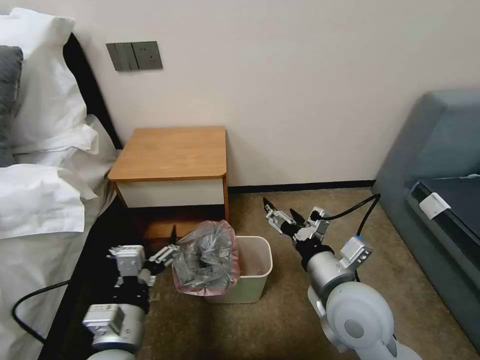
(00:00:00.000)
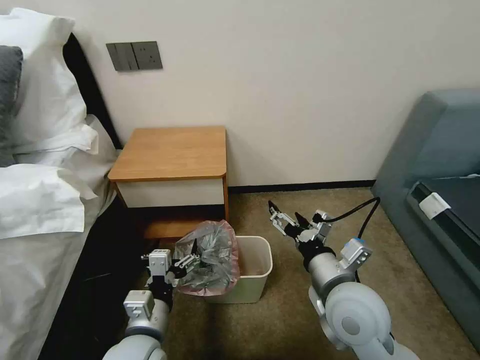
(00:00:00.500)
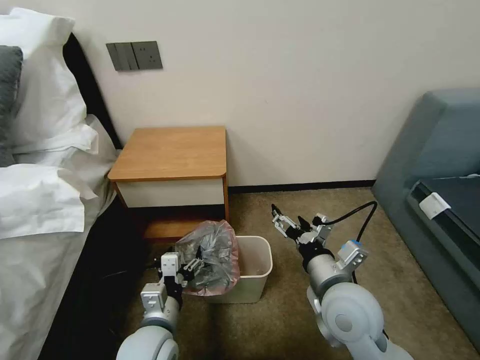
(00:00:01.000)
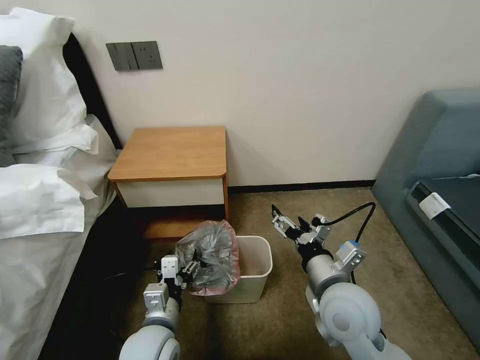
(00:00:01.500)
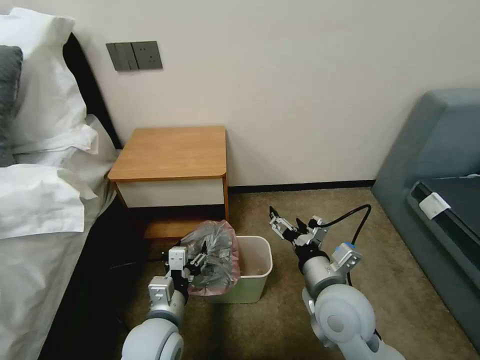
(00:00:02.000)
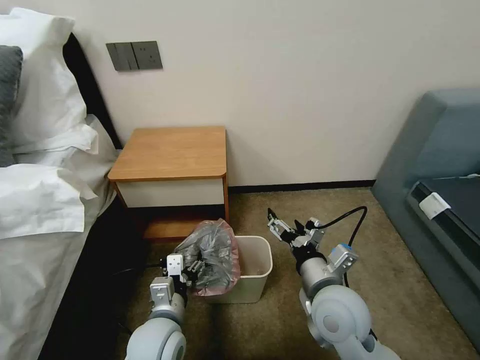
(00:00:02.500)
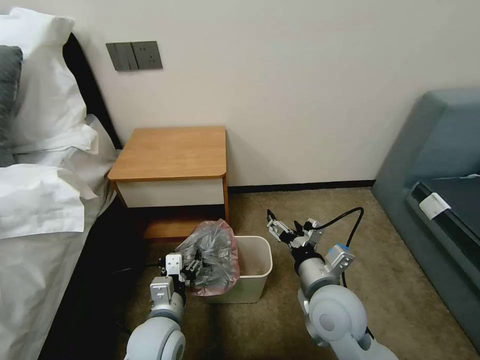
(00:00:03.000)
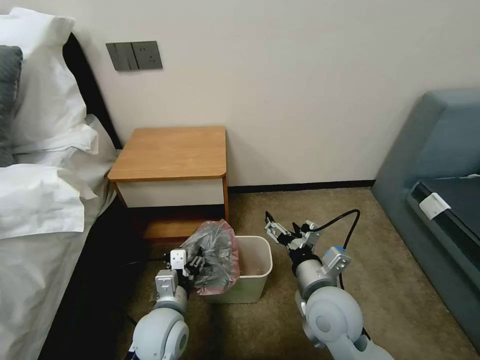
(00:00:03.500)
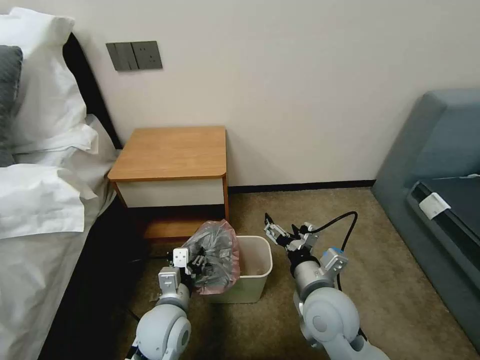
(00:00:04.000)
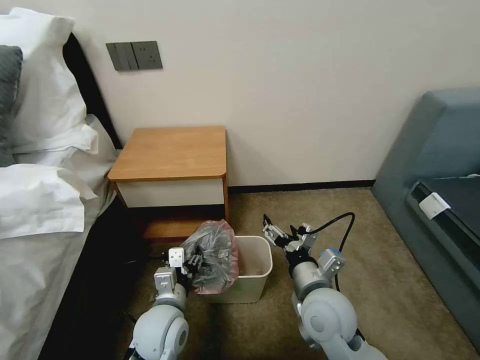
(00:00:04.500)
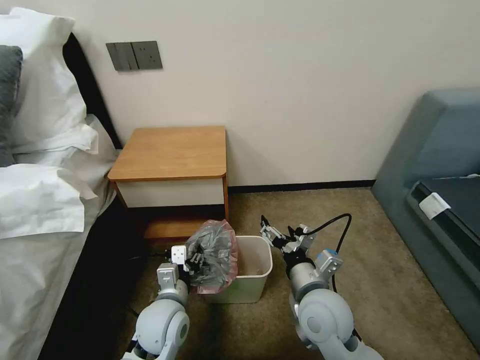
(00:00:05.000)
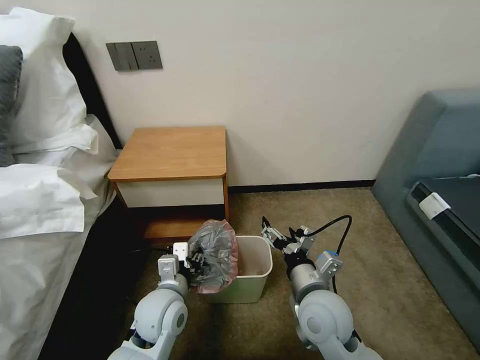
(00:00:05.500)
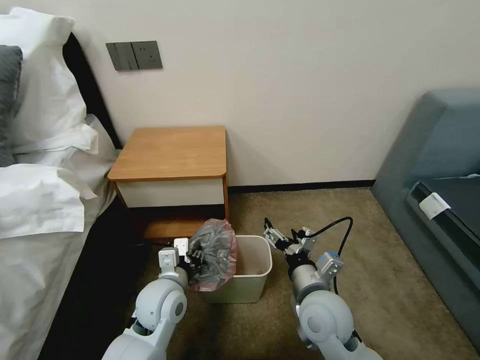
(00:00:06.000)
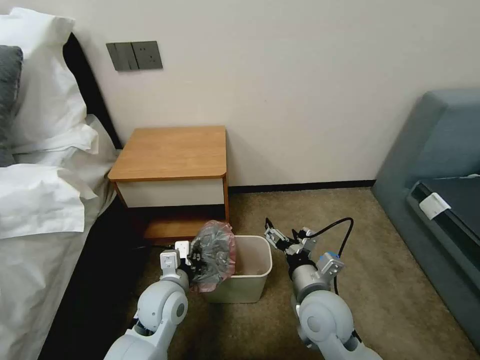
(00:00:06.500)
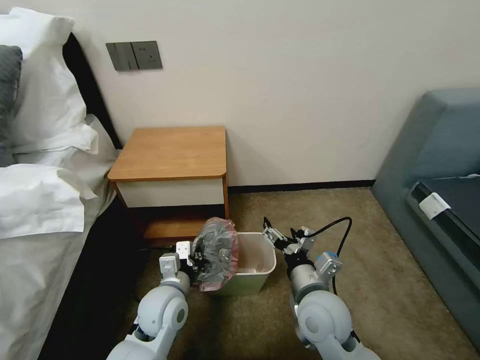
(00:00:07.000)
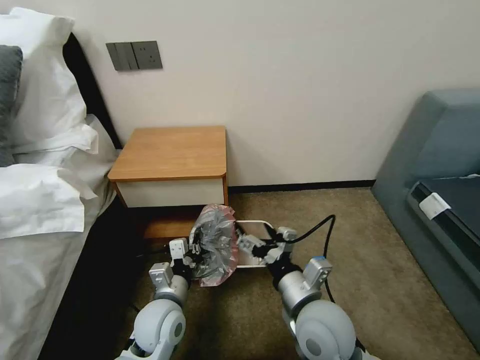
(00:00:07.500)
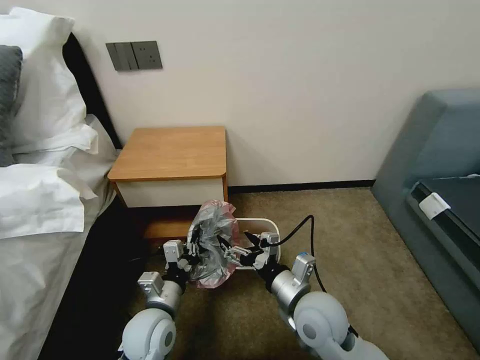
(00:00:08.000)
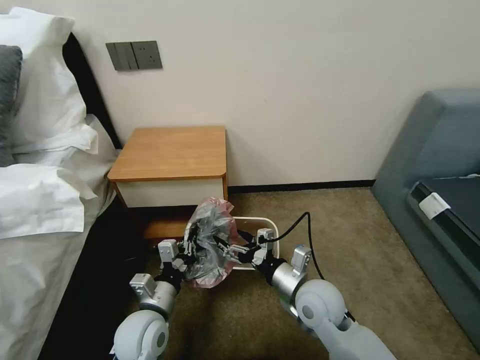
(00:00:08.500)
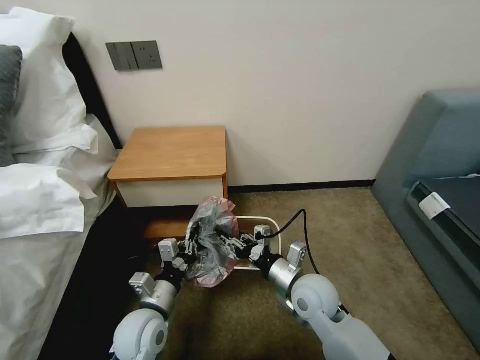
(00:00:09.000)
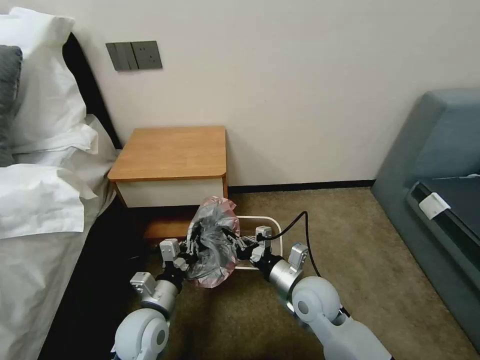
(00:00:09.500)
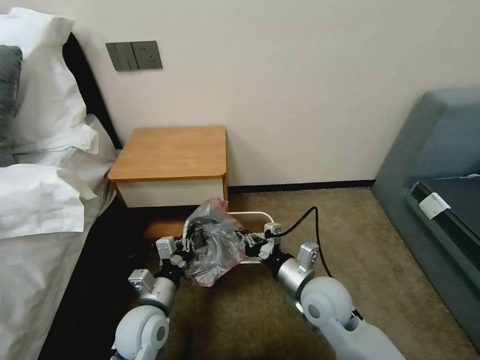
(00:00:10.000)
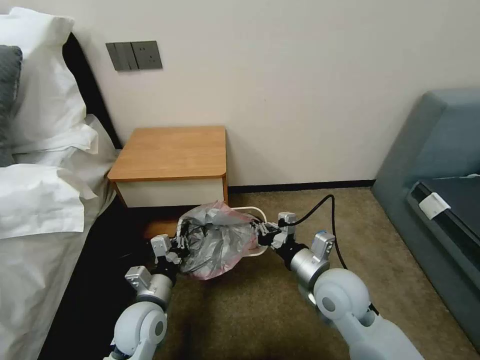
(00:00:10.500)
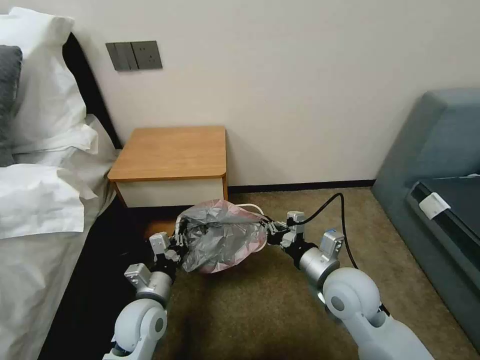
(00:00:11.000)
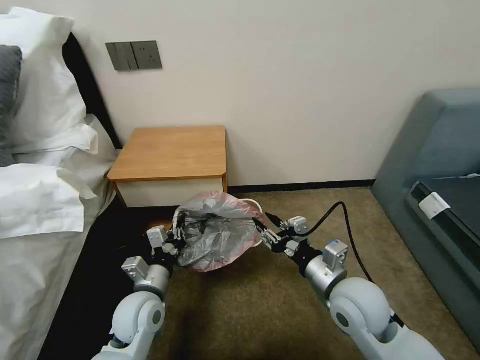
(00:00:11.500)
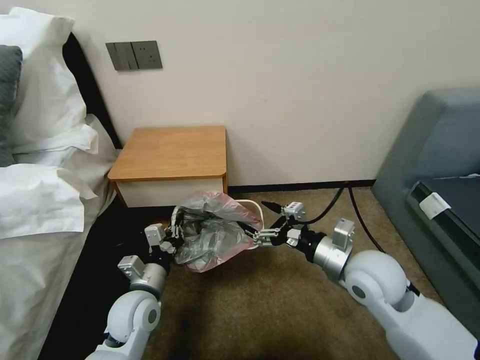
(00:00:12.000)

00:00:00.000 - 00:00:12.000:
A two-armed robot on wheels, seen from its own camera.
Task of the whole recording: Pick up the garbage bag from the table and place it over the trash can.
00:00:00.000 - 00:00:02.000: The left gripper is displaced downward and forward by approximately 10 cm.
00:00:02.000 - 00:00:04.000: The grippers move only a little.
00:00:04.000 - 00:00:06.000: The grippers move only a little.
00:00:06.000 - 00:00:08.000: The left gripper ends up approximately 5 cm from where it was, and closes its fingers.
00:00:08.000 - 00:00:10.000: The right gripper closes its fingers.
00:00:10.000 - 00:00:12.000: The right gripper moves upward and to the right, some 10 cm, and opens.

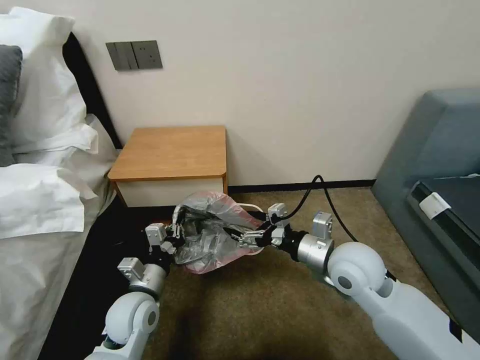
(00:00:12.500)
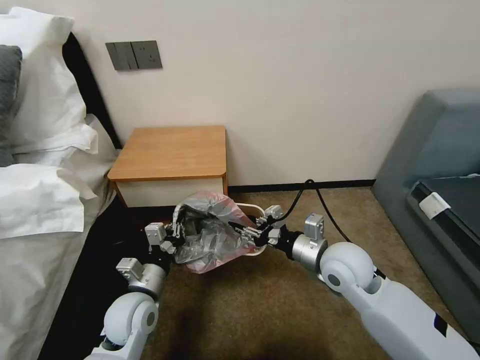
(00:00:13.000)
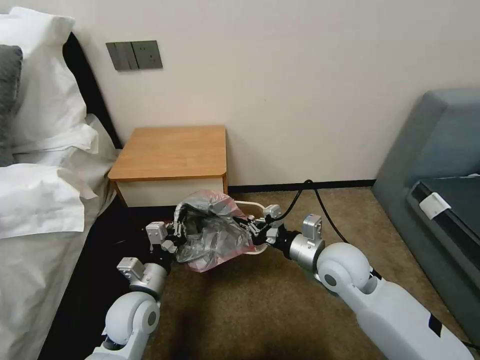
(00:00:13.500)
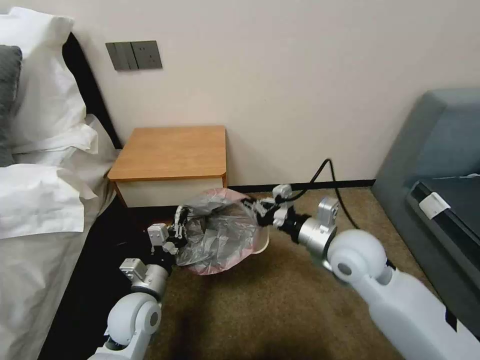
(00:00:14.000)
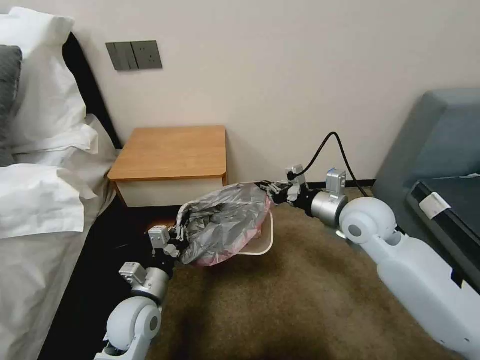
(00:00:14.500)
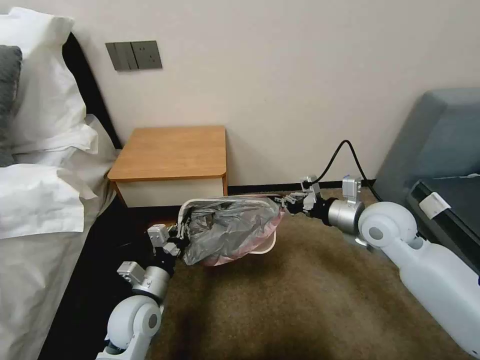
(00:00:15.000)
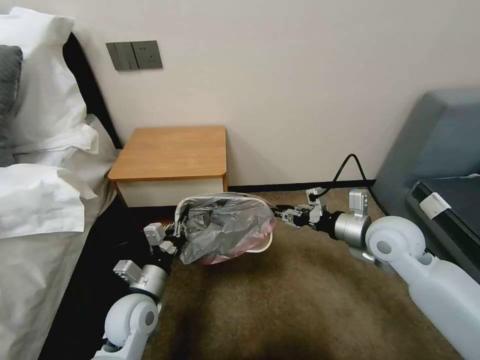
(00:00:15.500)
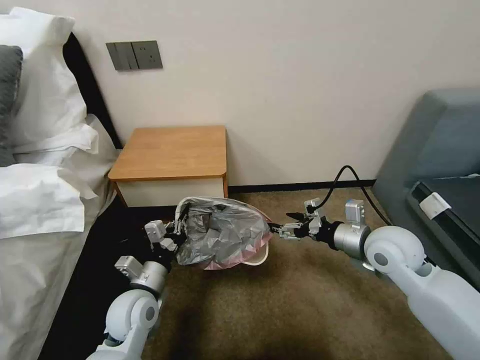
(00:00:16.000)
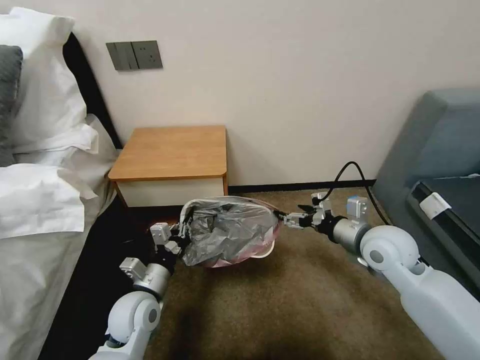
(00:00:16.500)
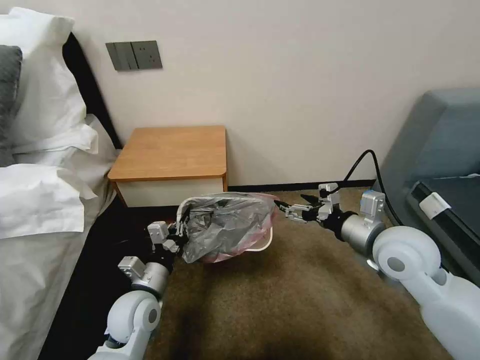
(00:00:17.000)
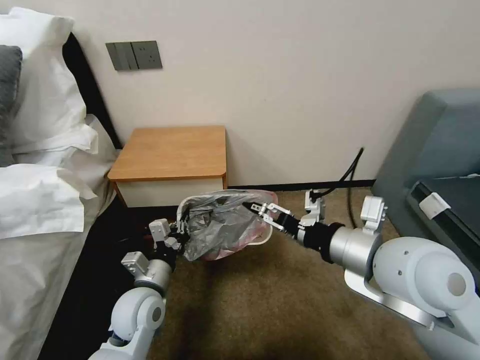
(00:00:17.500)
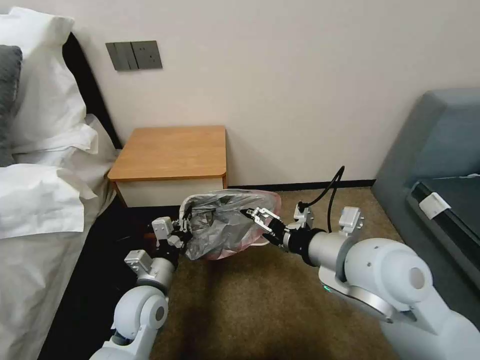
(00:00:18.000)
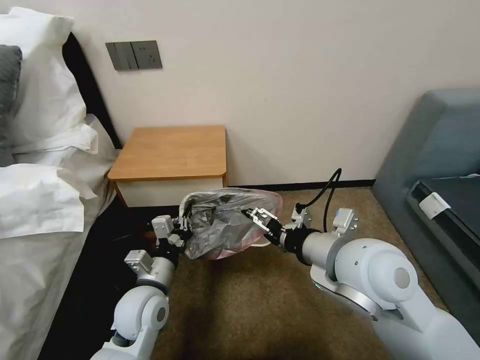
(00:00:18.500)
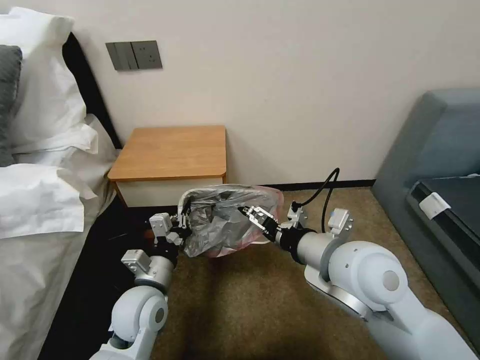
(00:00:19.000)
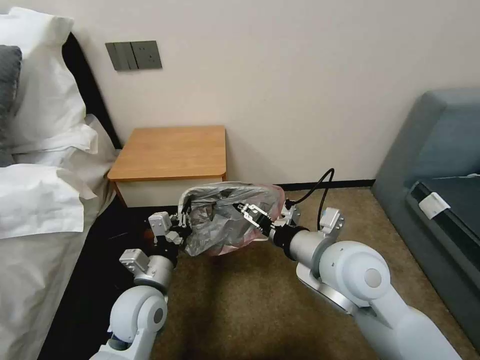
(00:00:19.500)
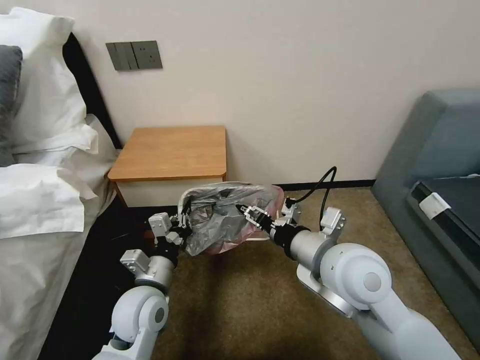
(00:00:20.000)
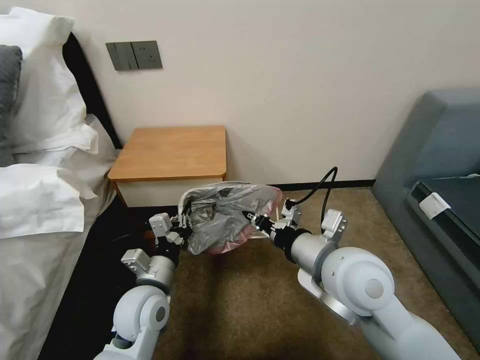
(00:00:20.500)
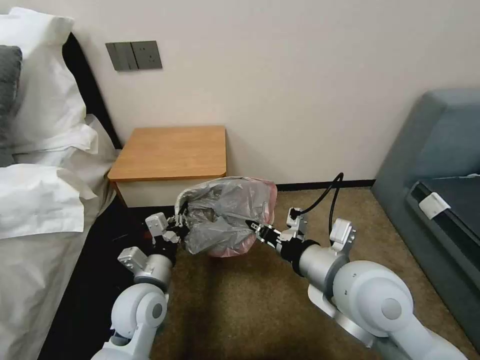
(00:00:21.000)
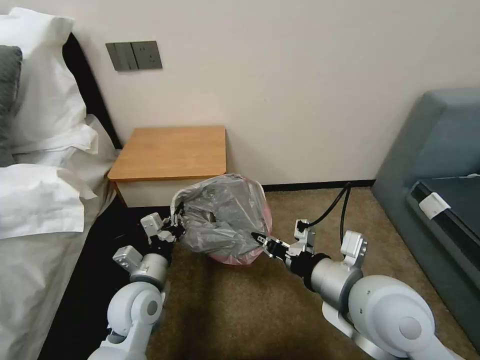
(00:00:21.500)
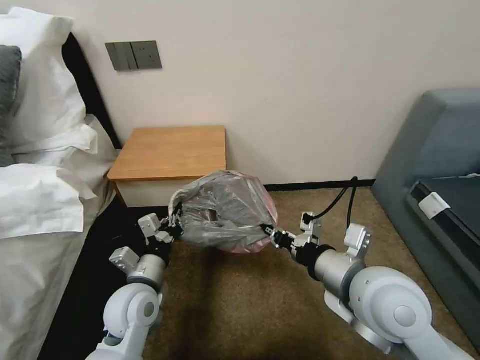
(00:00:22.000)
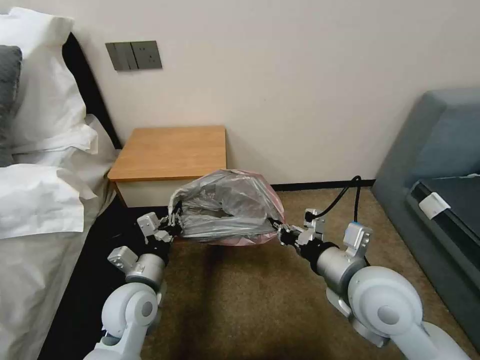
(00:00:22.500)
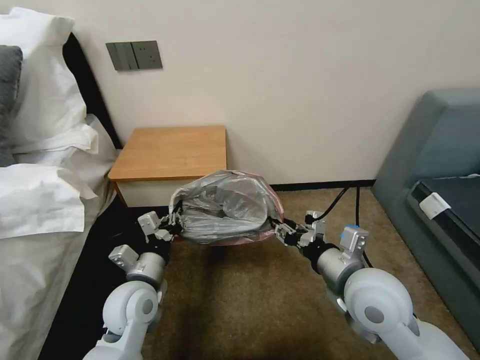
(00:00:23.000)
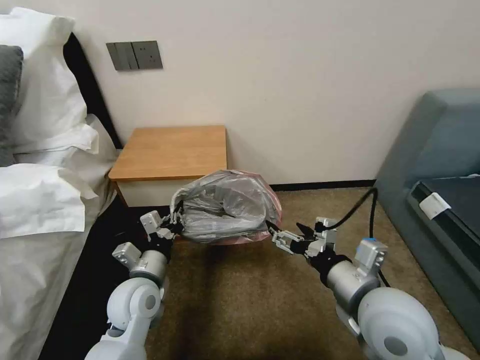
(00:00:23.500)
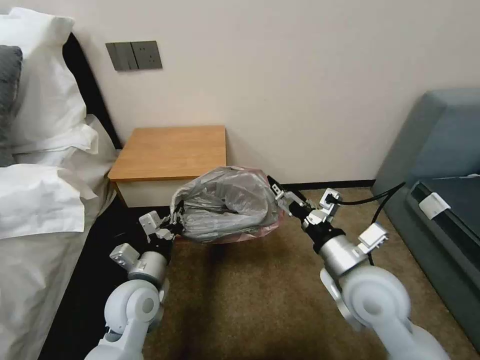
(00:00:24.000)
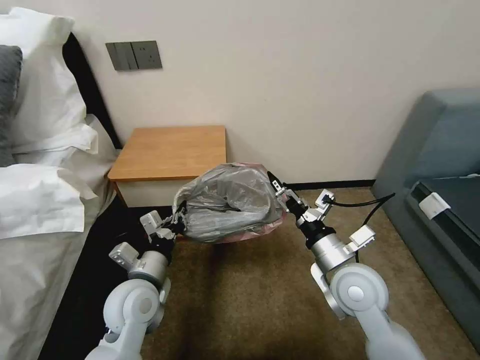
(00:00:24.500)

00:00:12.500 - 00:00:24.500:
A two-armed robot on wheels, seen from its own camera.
Task of the whole recording: Pick up the garbage bag from the table and place it over the trash can.
00:00:12.500 - 00:00:14.500: The right gripper heads forward, covering about 10 cm, and closes its fingers.
00:00:14.500 - 00:00:16.500: The right gripper shifts by roughly 10 cm, and opens up.
00:00:16.500 - 00:00:18.500: The right gripper goes approximately 15 cm to the left, upward and backward.
00:00:18.500 - 00:00:20.500: The right gripper closes its fingers.
00:00:20.500 - 00:00:22.500: The right gripper changes place by approximately 5 cm.
00:00:22.500 - 00:00:24.500: The right gripper goes approximately 5 cm downward, and opens up.

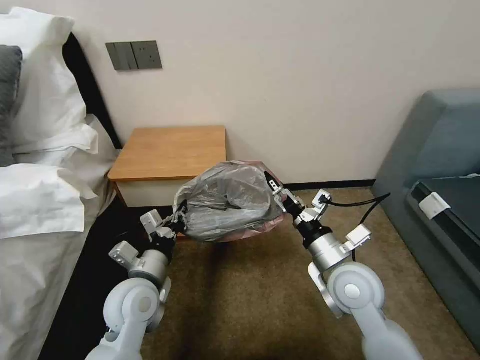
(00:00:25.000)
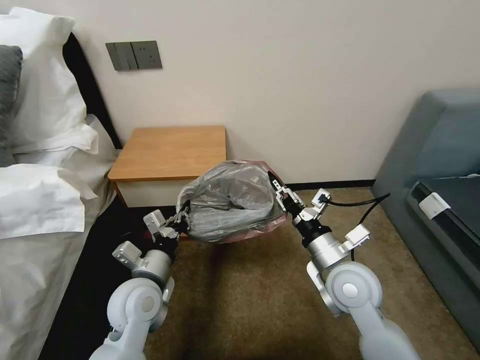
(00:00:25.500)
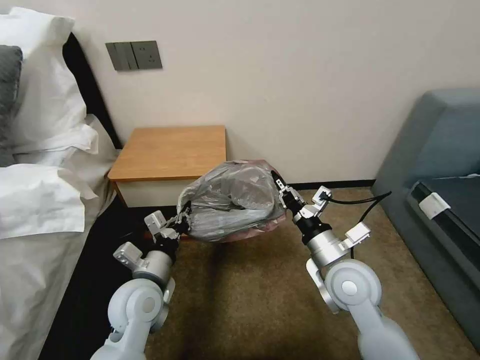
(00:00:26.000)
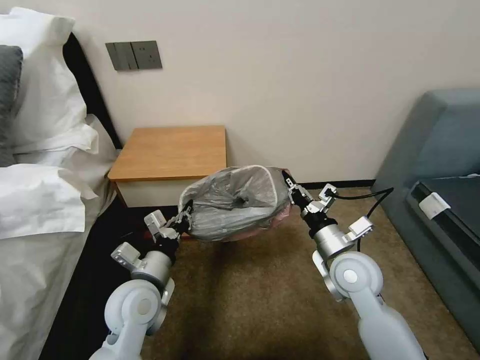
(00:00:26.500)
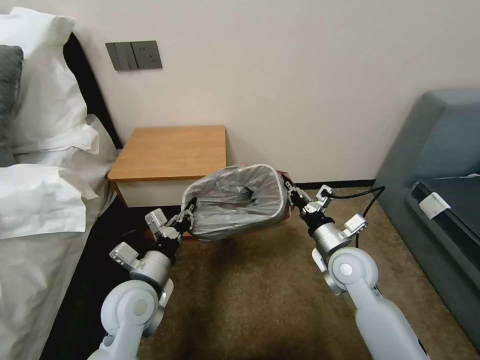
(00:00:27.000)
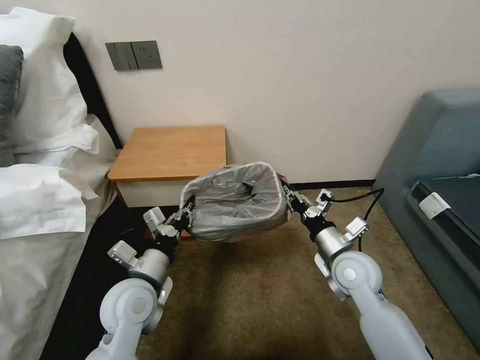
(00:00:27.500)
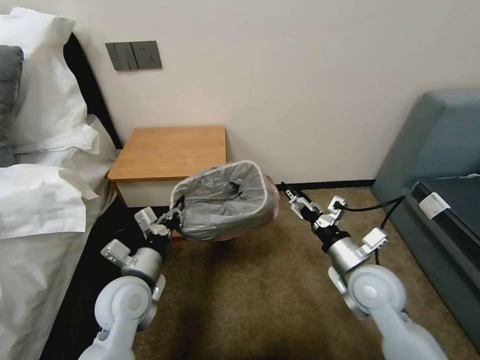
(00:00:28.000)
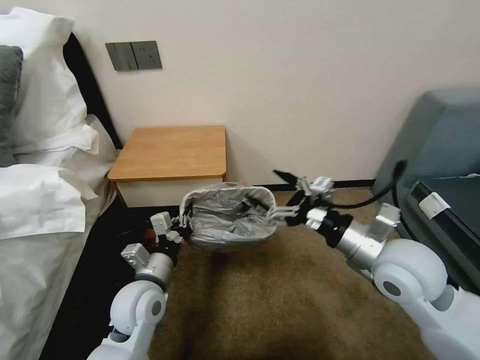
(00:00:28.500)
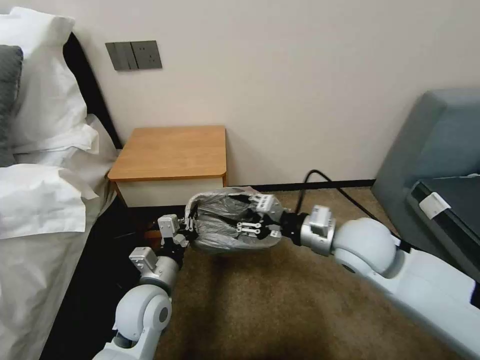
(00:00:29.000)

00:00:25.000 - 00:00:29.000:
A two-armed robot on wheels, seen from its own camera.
Task of the whole recording: Pick up the garbage bag from the table and place it over the trash can.
00:00:25.000 - 00:00:27.000: The right gripper travels forward by roughly 5 cm, and closes.
00:00:27.000 - 00:00:29.000: The right gripper moves upward, approximately 10 cm, and opens up.
